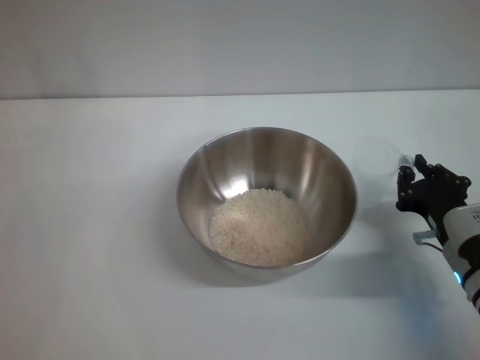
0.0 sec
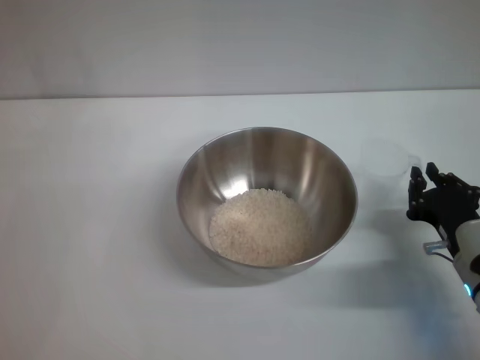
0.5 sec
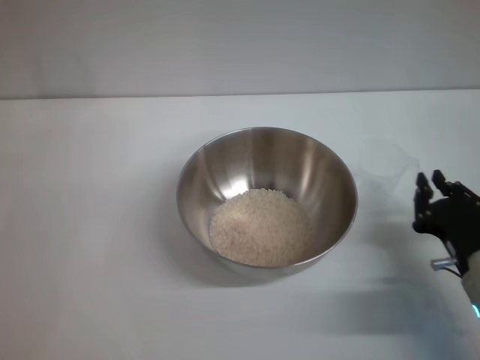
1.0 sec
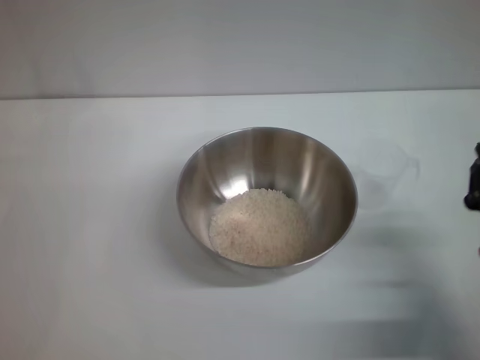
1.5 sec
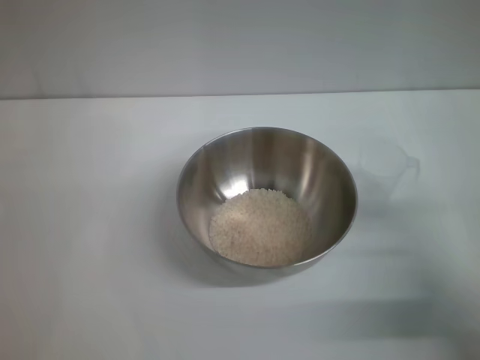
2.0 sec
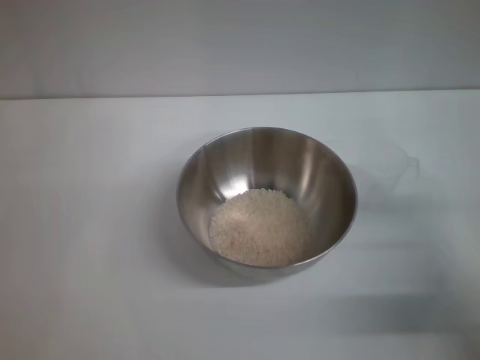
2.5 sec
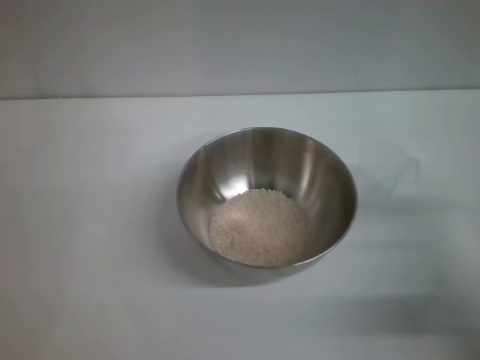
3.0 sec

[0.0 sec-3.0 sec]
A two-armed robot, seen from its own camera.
Task of the whole recording: Place the bowl in the middle of the table with one hand and pour the rice from the grain cup into it with the other hand.
0.0 sec to 1.5 sec: The right gripper travels backward by about 5 cm.
1.5 sec to 3.0 sec: The right gripper shifts by about 5 cm, and opens its fingers.

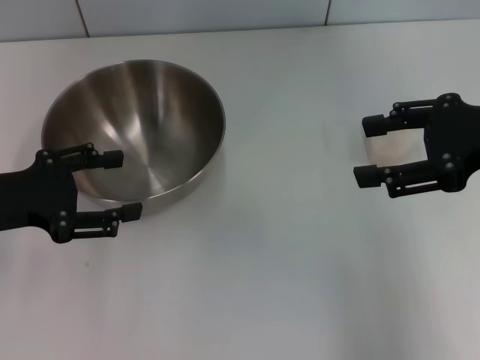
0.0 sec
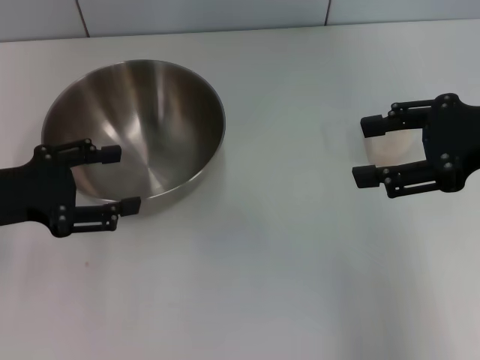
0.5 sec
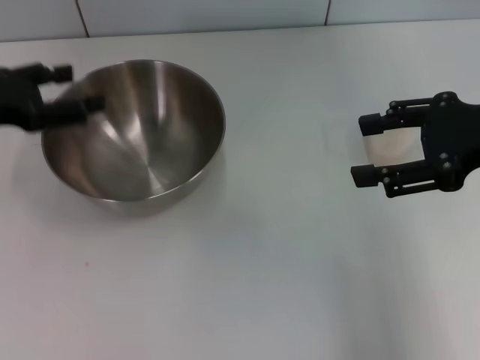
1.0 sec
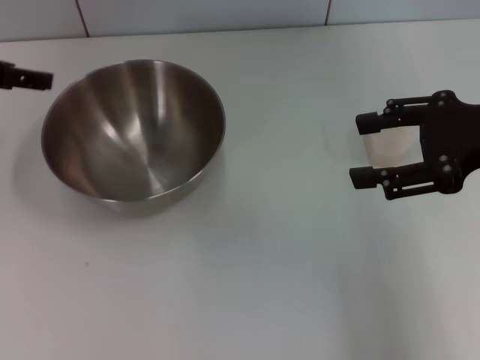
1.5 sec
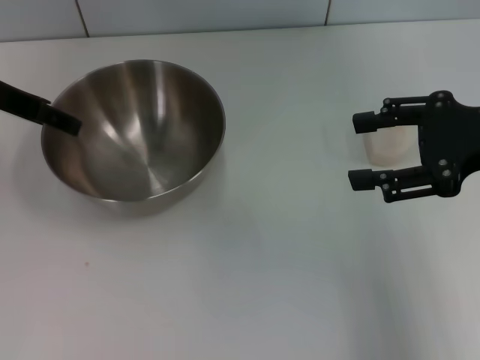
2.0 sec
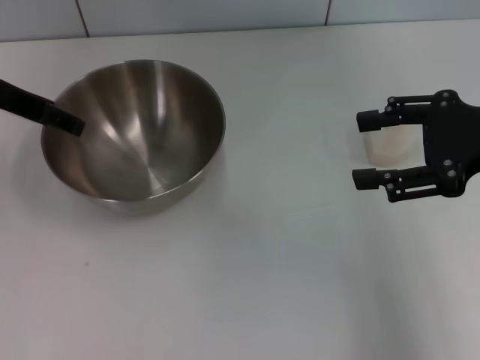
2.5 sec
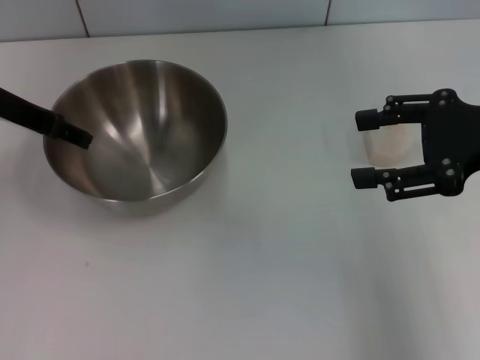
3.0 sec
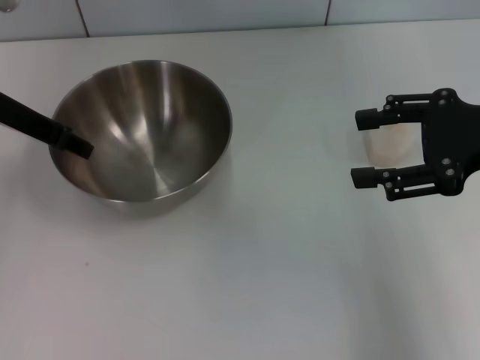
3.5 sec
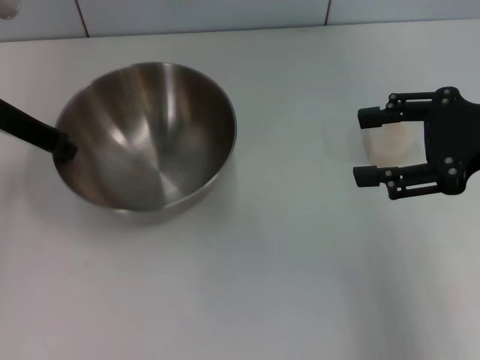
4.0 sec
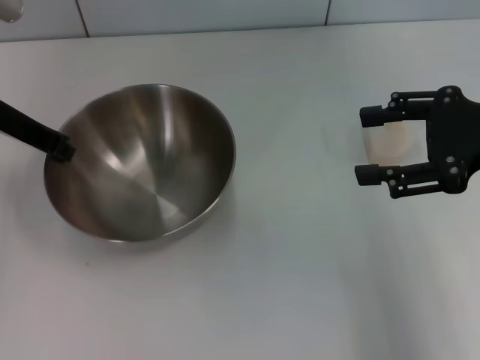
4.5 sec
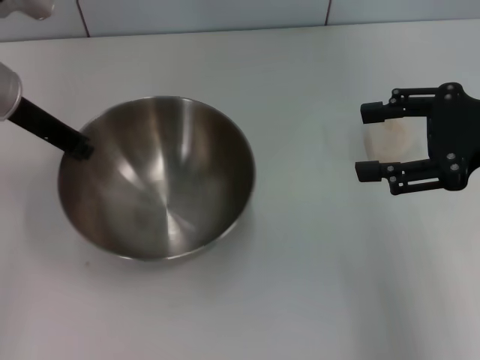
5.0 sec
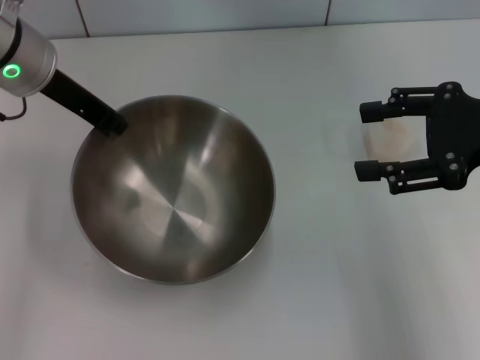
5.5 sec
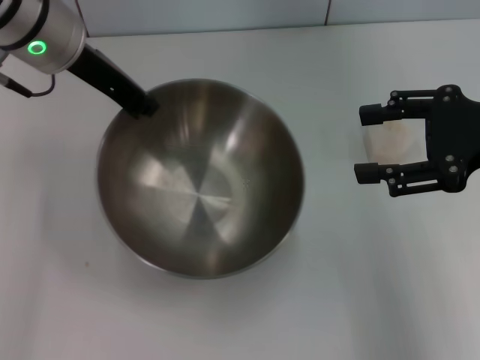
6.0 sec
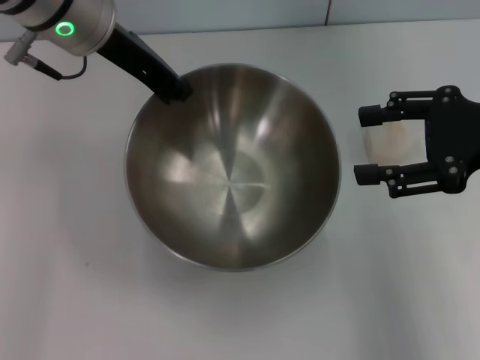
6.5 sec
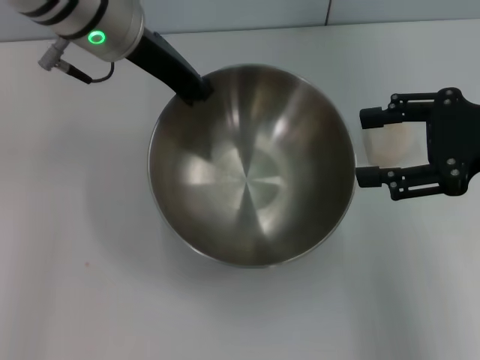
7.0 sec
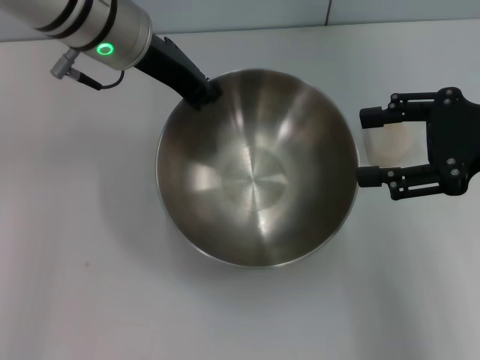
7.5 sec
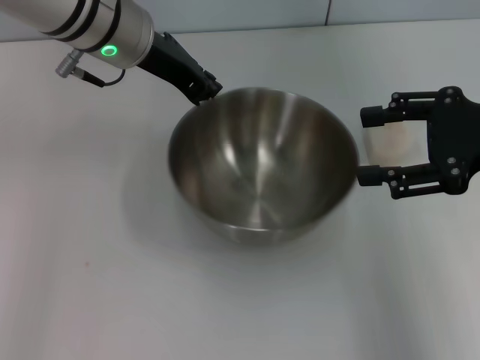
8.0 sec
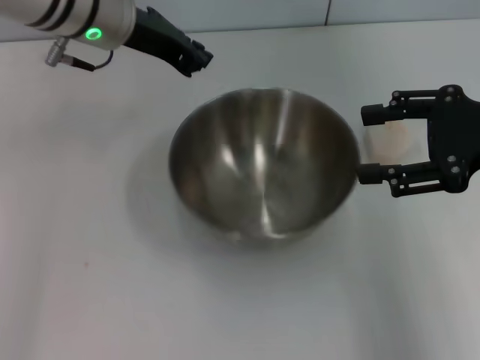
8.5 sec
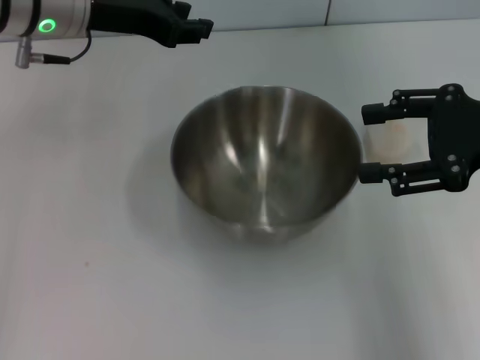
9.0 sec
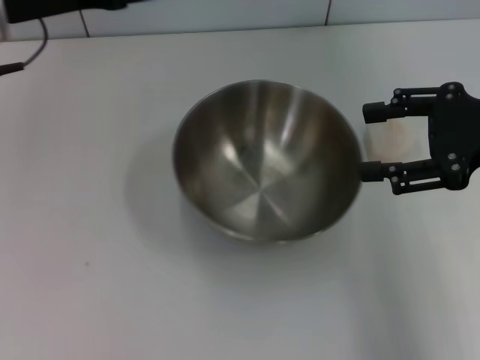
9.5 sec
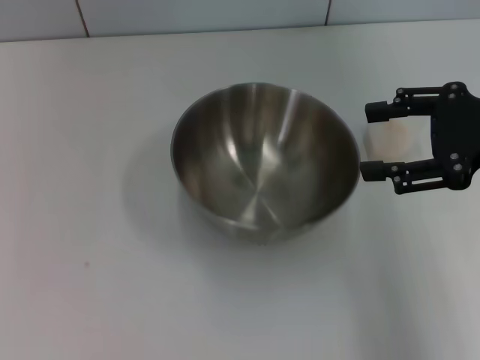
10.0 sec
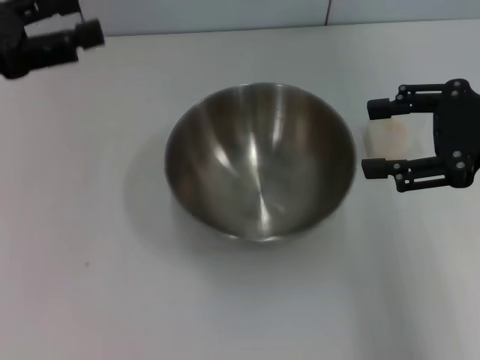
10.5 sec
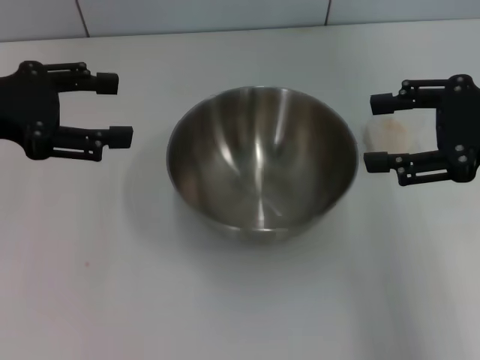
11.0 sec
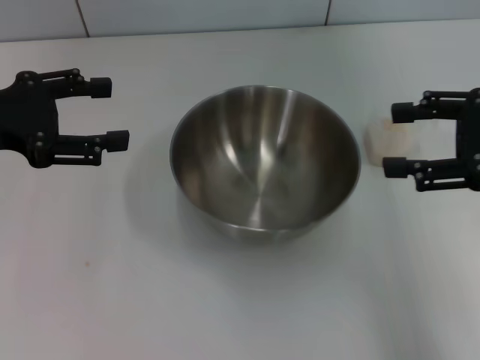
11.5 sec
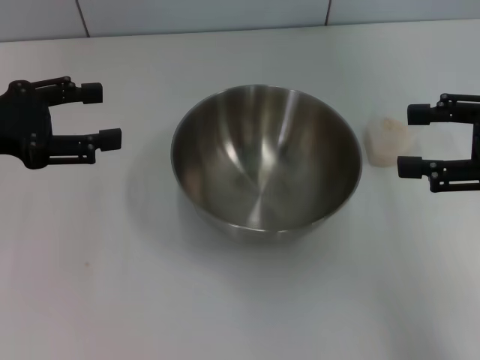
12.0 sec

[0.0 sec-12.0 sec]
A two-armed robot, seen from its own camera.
Task of the whole recording: Place the bowl in the middle of the table with one hand and pour the rice from the grain cup into it with the other hand.
Step, 0.0 sec to 5.5 sec: Pick up the bowl with the left gripper.
Step, 6.0 sec to 9.5 sec: Place the bowl in the center of view with the left gripper.
0.0 sec to 2.0 sec: The left gripper is displaced forward and upward by about 15 cm.
2.0 sec to 4.0 sec: The left gripper closes its fingers.
4.0 sec to 6.0 sec: The left gripper moves to the right and upward, approximately 10 cm.
6.0 sec to 8.0 sec: The left gripper changes place by roughly 5 cm.
8.0 sec to 10.0 sec: The left gripper shifts some 20 cm to the left and backward, and opens up.

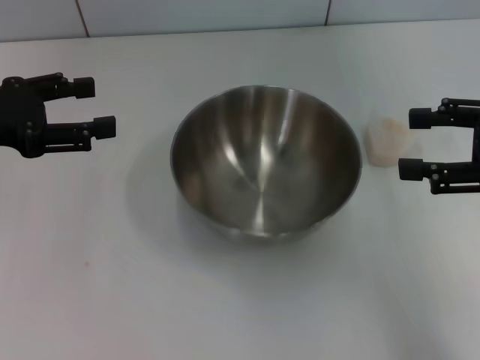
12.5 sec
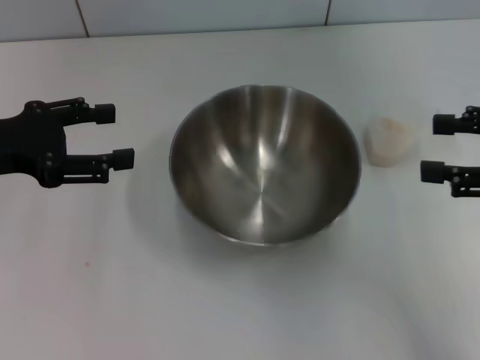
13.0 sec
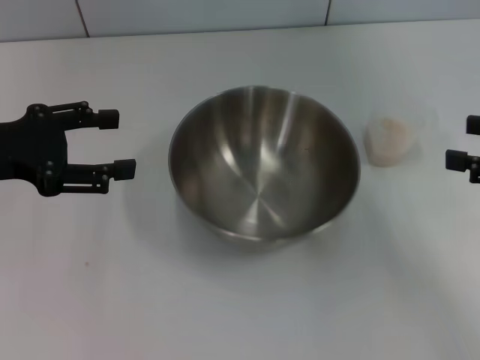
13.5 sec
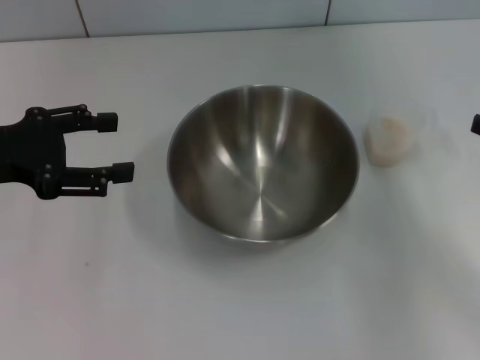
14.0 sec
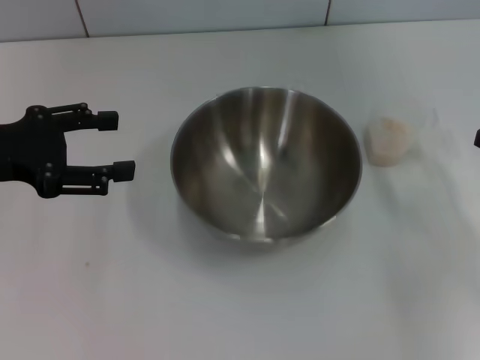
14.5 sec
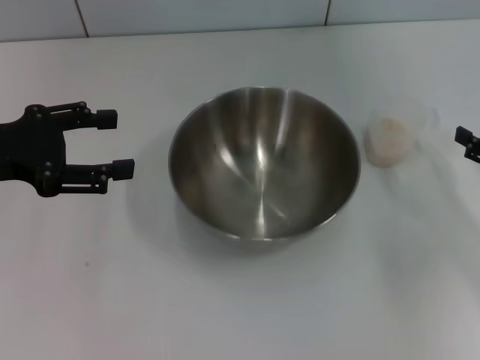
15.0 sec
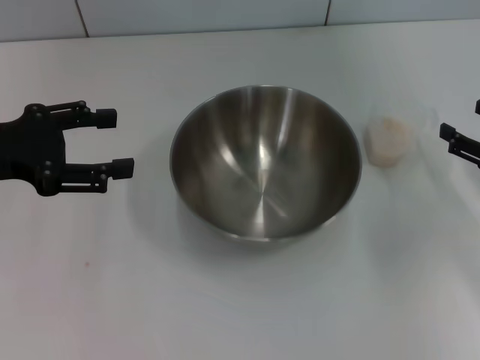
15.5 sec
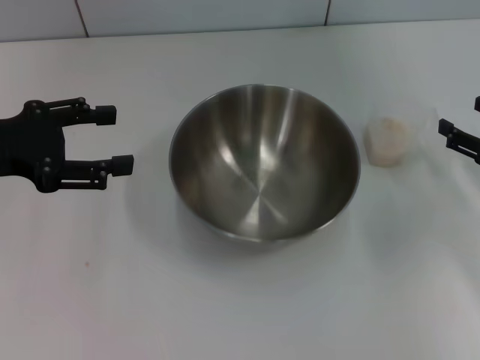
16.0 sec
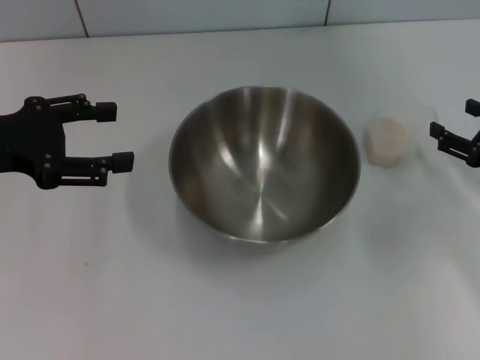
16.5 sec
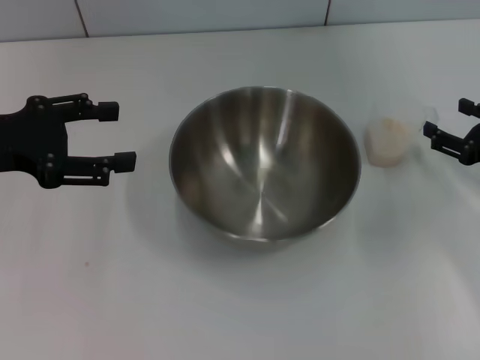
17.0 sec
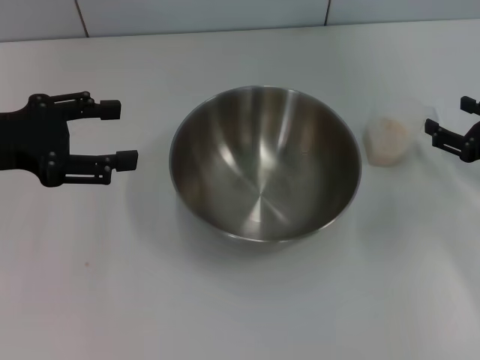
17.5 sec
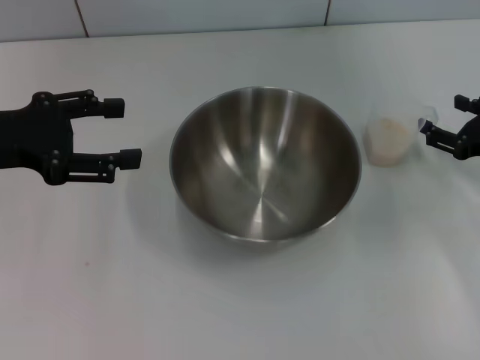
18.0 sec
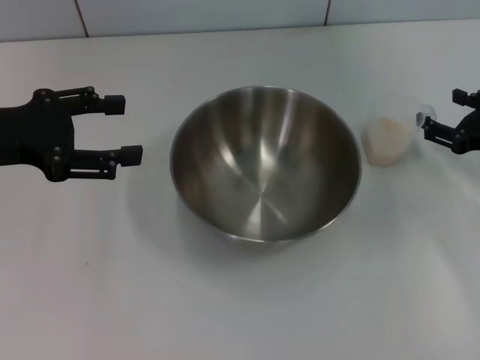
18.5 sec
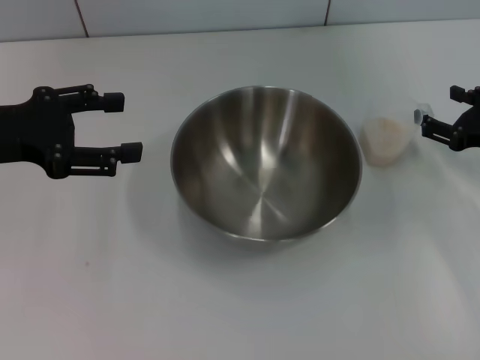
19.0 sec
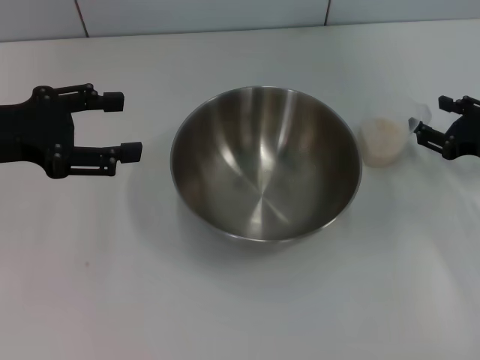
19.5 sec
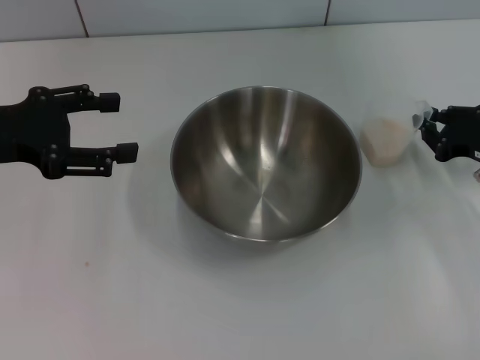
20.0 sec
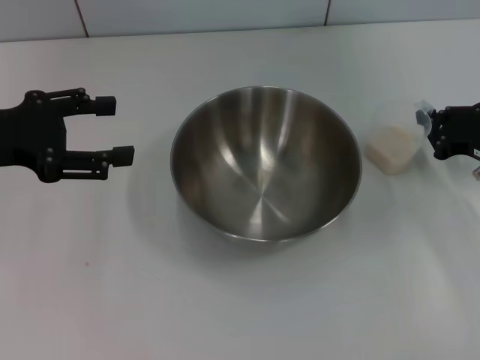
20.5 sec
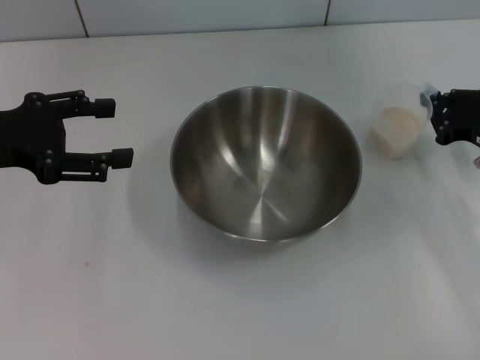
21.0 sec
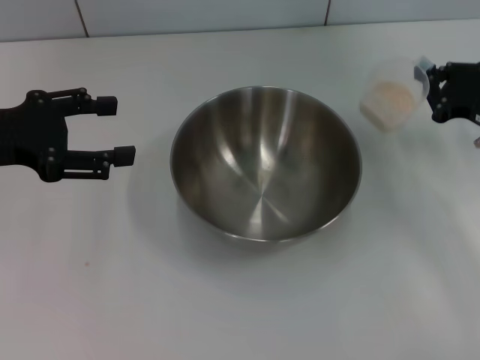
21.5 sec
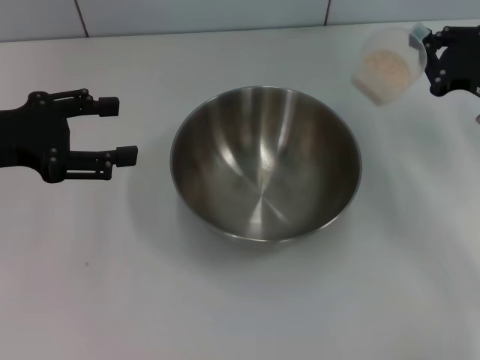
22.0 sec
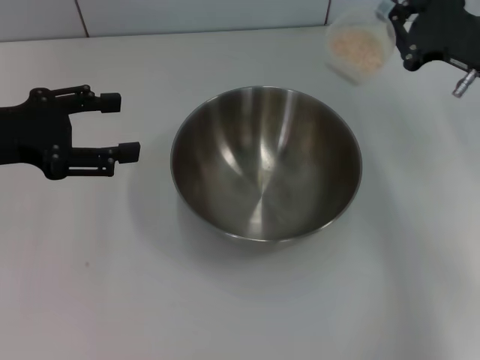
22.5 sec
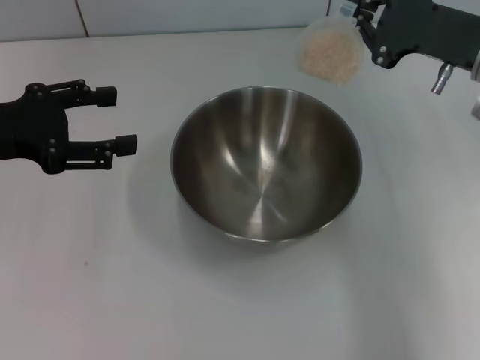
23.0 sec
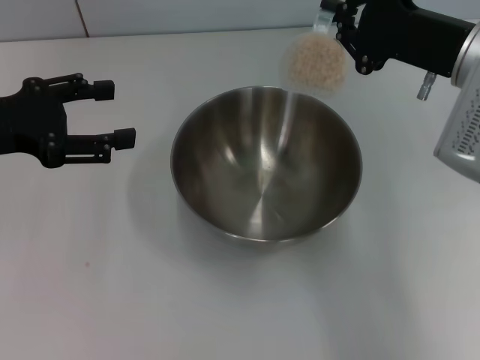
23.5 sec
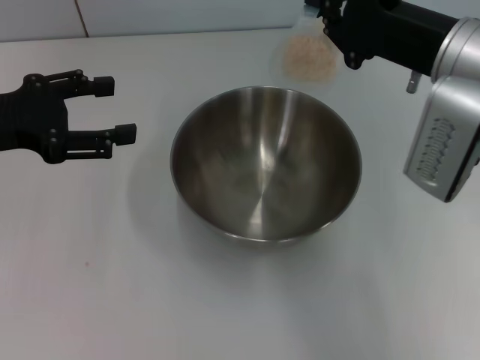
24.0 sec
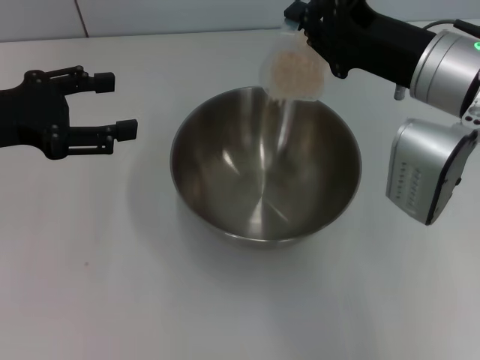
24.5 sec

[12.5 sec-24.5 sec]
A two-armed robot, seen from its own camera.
Task of the whole recording: Place the bowl in the middle of the table with one hand and pour the rice from the grain cup into it with the other hand.
Step, 12.5 sec to 22.0 sec: Pick up the cup with rice in it with the right gripper.
12.5 sec to 14.5 sec: The right gripper travels downward and to the right by some 15 cm.
14.5 sec to 16.5 sec: The right gripper goes roughly 5 cm forward.
16.5 sec to 18.5 sec: The grippers stay close to where they were, moving slightly.
18.5 sec to 20.5 sec: The right gripper closes.
20.5 sec to 22.5 sec: The right gripper is displaced upward by some 10 cm.
22.5 sec to 24.5 sec: The right gripper moves to the left, approximately 10 cm.
